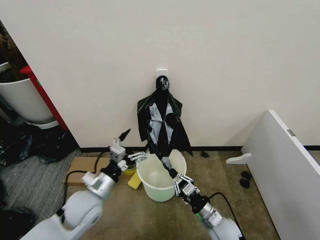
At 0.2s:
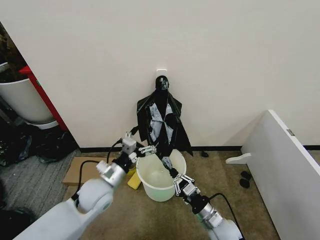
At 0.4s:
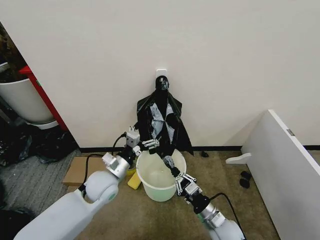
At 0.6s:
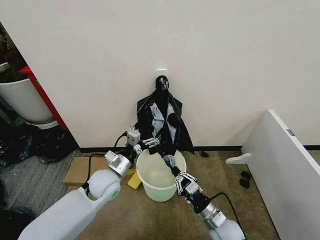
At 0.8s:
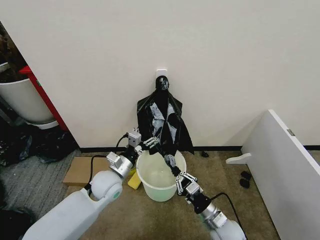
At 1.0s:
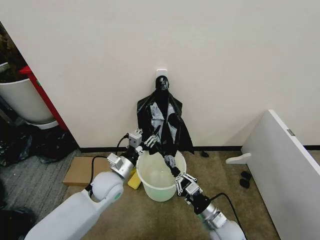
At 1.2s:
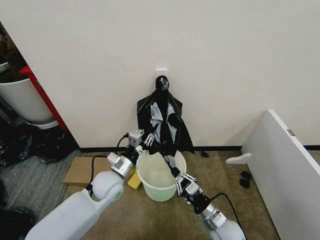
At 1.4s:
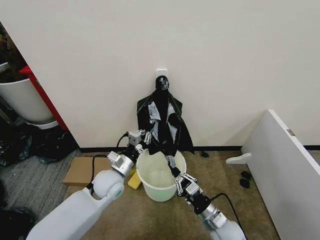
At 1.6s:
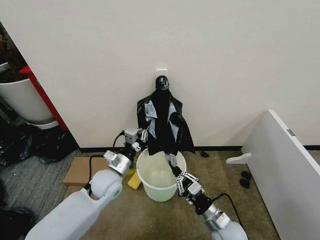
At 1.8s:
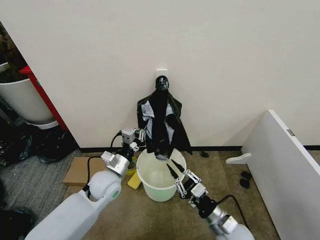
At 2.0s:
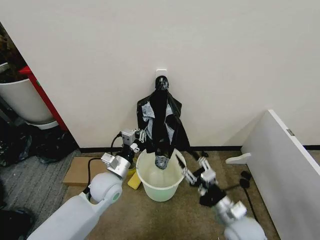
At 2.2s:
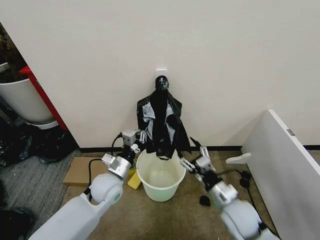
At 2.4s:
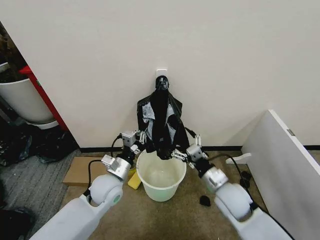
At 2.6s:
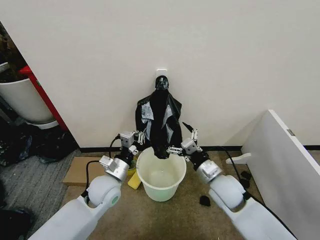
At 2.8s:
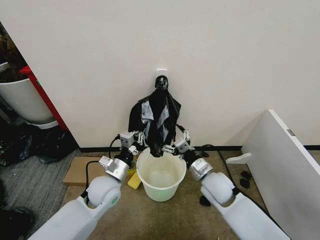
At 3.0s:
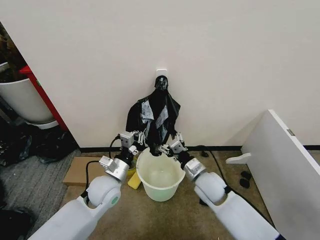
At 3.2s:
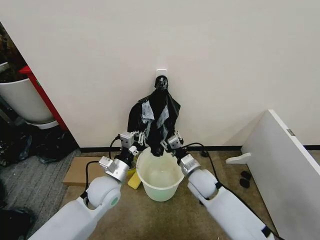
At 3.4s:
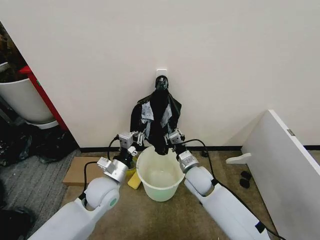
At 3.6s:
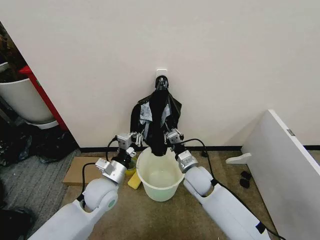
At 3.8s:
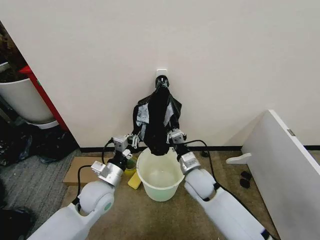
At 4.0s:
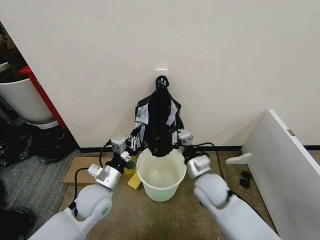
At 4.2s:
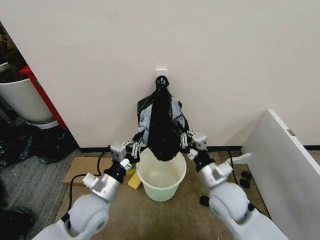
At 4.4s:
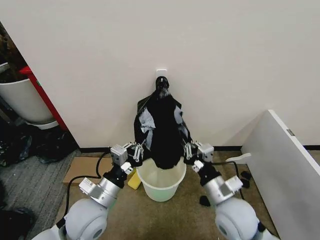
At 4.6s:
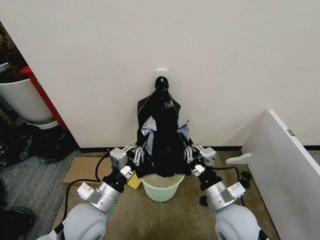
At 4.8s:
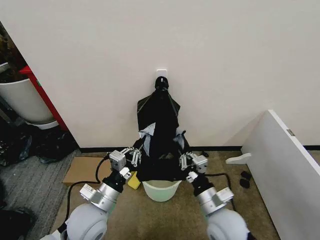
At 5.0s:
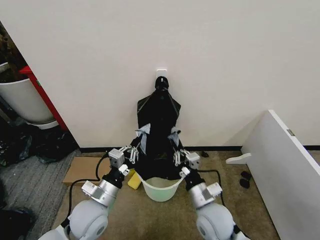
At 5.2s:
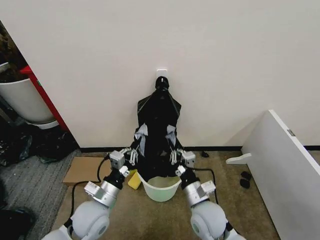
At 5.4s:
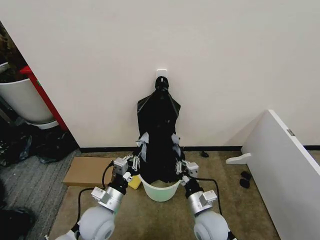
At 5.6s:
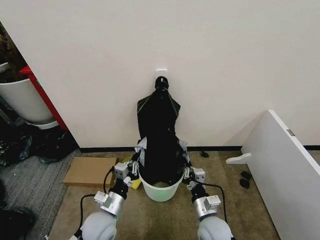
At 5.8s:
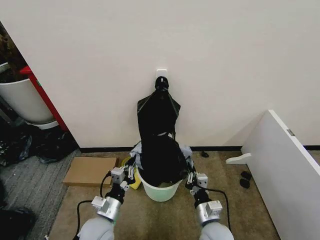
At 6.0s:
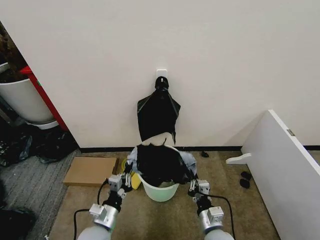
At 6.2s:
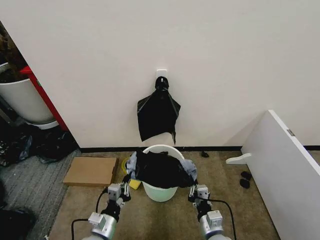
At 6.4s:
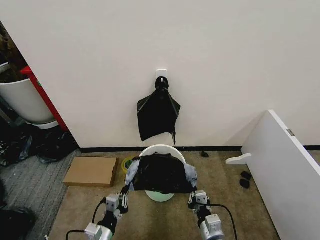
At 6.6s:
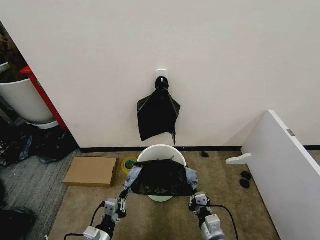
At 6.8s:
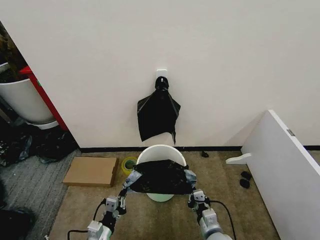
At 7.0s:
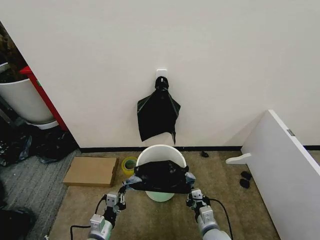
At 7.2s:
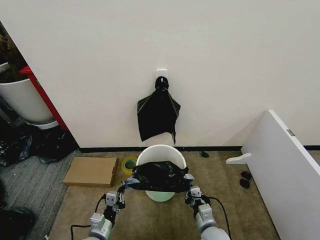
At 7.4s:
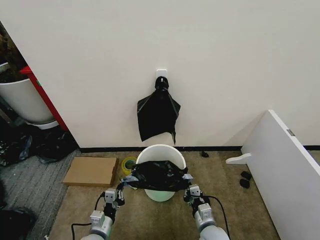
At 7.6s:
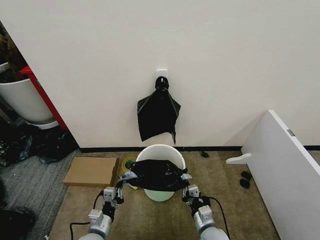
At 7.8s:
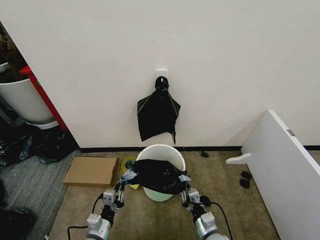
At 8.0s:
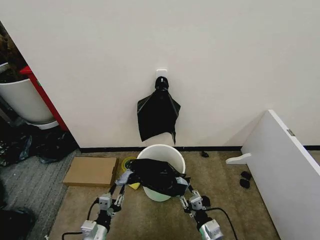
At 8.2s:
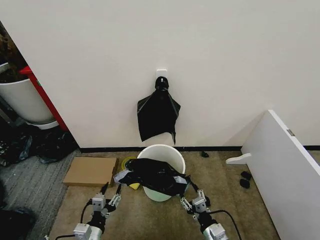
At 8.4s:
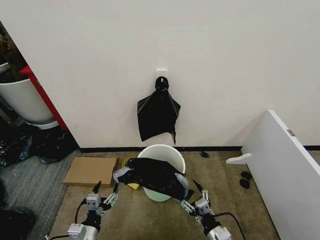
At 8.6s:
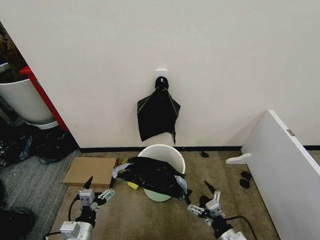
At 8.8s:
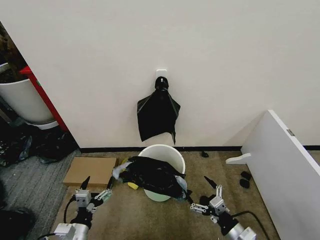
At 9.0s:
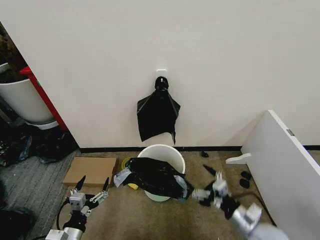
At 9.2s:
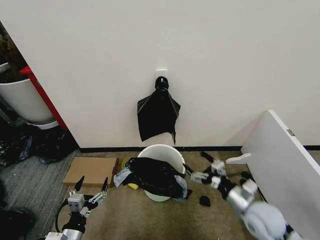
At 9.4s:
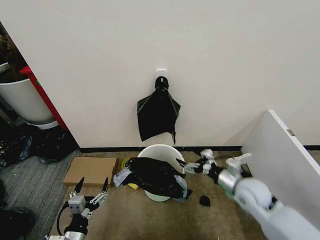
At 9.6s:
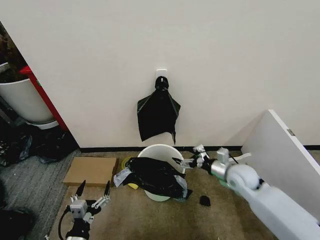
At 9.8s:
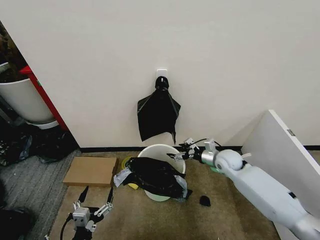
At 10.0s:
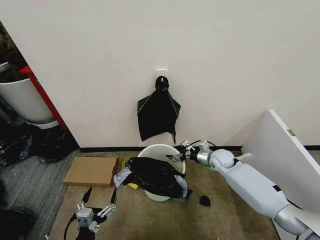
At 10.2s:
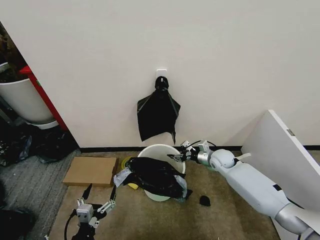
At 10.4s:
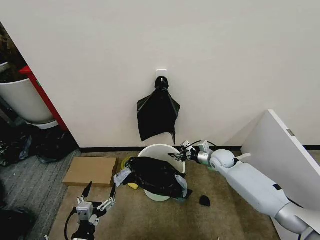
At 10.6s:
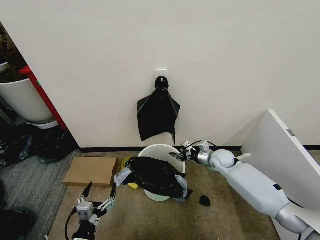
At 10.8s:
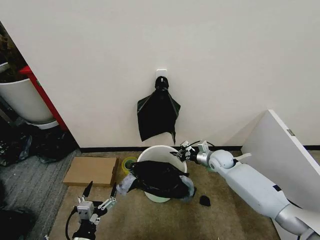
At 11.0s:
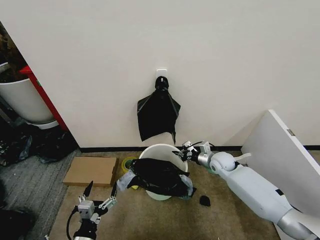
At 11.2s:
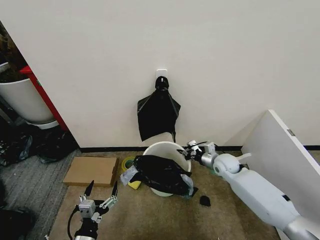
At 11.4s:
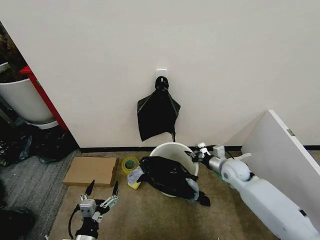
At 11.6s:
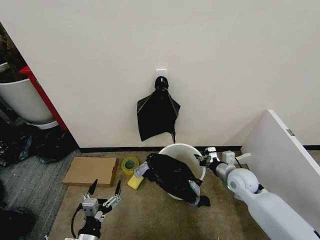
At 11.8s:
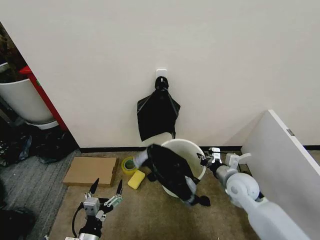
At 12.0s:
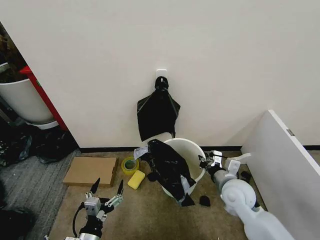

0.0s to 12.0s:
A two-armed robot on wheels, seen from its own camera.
Task of the whole recording: Place the garbage bag over the trash bin.
0.0s to 1.6s: The left gripper travels forward by approximately 5 cm, and closes its fingers.
1.6s to 3.0s: The right gripper shifts about 15 cm forward and upward, and opens its fingers.
3.0s to 4.4s: The right gripper moves backward and upward, approximately 10 cm, and closes up. The left gripper heads backward, covering roughly 10 cm.
4.4s to 6.0s: Both grippers move downward, roughly 15 cm.
6.0s to 7.6s: Both grippers move downward, roughly 5 cm.
7.6s to 9.0s: The right gripper travels upward and to the right by approximately 15 cm, and opens its fingers, while the left gripper moves upward, to the left and backward, approximately 10 cm, and opens its fingers.
9.0s to 10.4s: The right gripper moves forward, approximately 30 cm, and closes.
10.4s to 12.0s: The right gripper travels backward by some 15 cm, and closes its fingers.

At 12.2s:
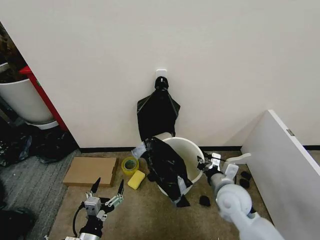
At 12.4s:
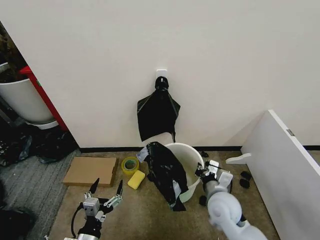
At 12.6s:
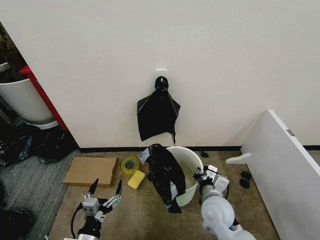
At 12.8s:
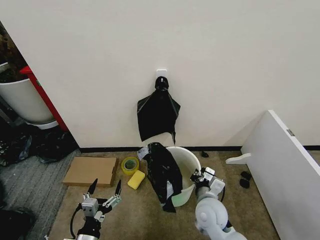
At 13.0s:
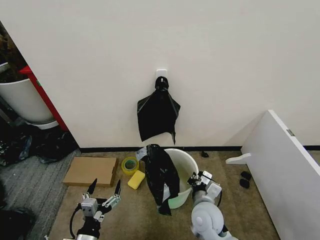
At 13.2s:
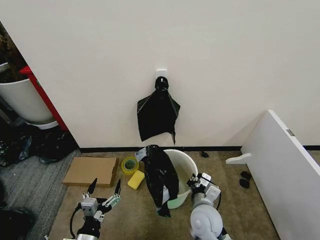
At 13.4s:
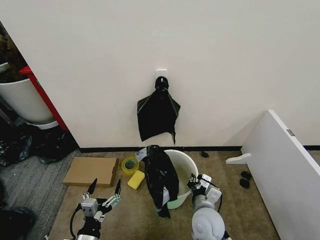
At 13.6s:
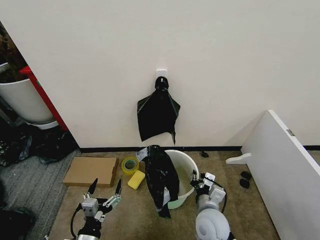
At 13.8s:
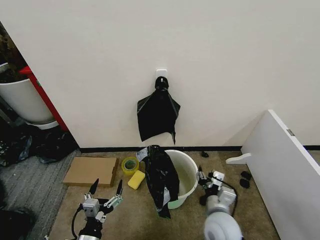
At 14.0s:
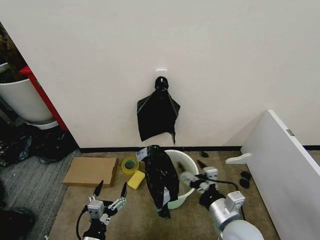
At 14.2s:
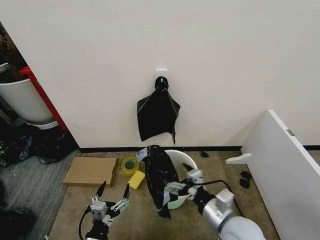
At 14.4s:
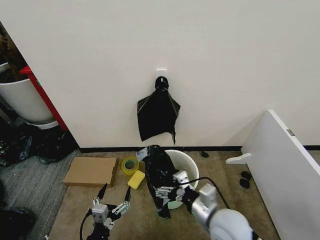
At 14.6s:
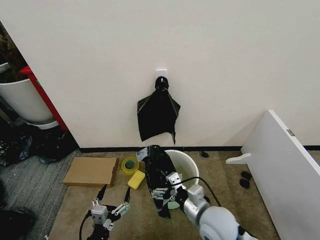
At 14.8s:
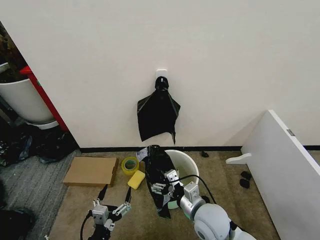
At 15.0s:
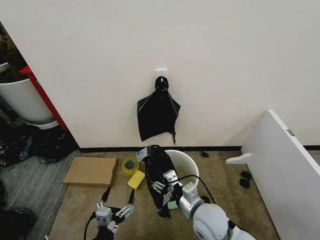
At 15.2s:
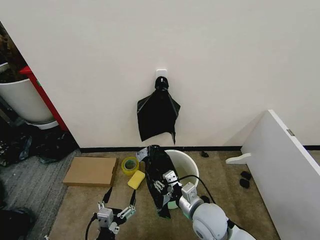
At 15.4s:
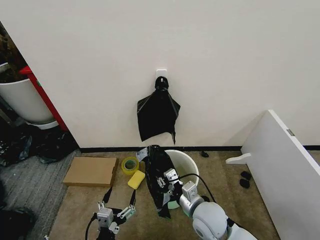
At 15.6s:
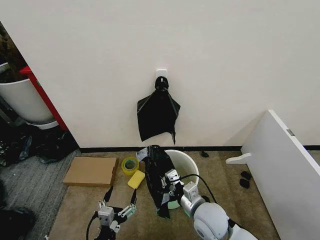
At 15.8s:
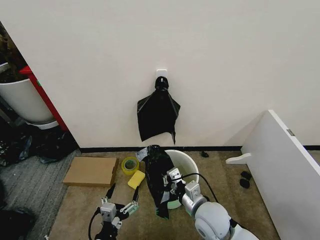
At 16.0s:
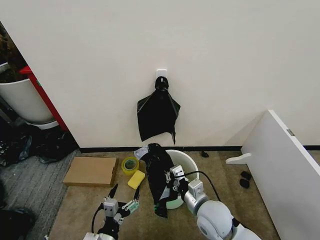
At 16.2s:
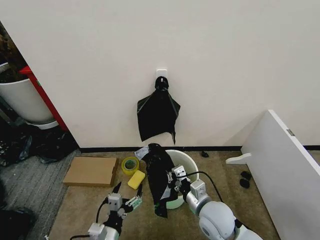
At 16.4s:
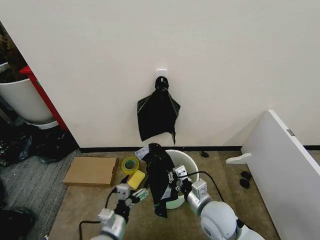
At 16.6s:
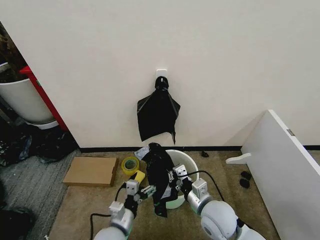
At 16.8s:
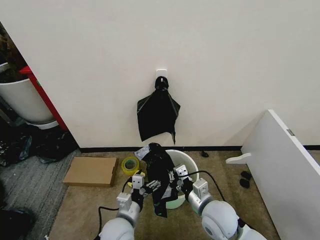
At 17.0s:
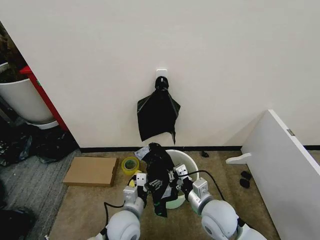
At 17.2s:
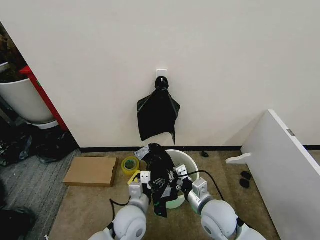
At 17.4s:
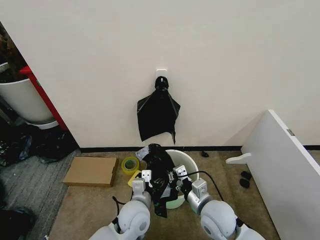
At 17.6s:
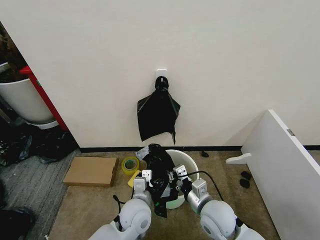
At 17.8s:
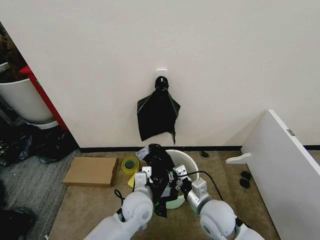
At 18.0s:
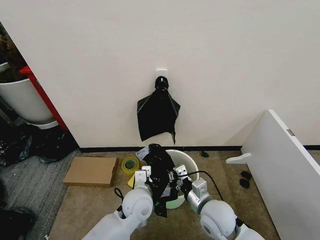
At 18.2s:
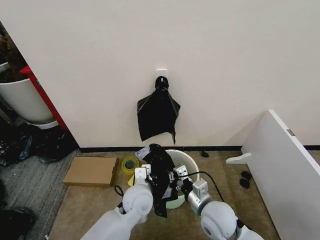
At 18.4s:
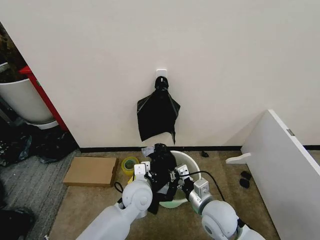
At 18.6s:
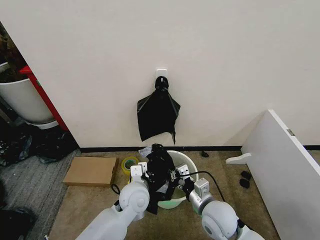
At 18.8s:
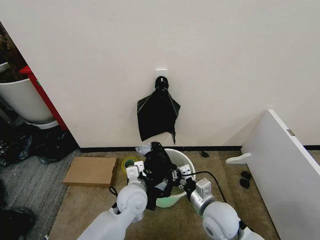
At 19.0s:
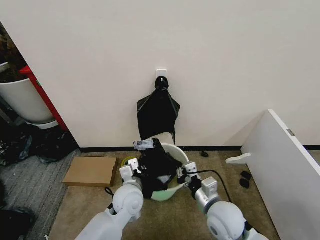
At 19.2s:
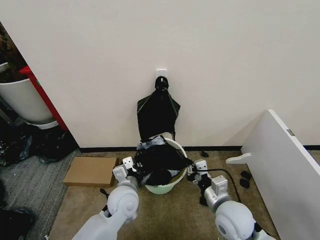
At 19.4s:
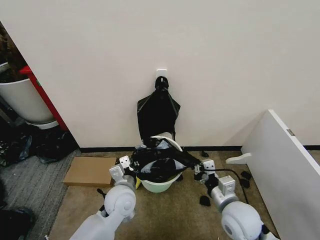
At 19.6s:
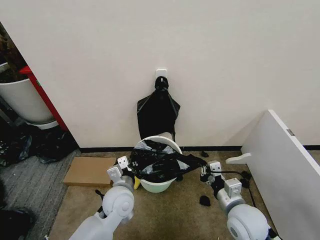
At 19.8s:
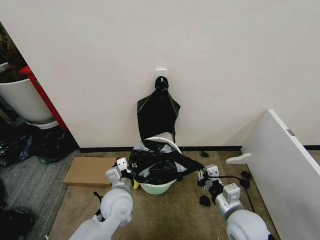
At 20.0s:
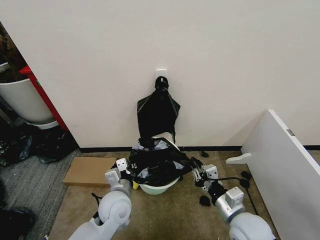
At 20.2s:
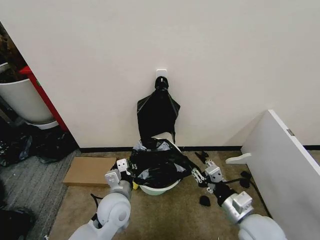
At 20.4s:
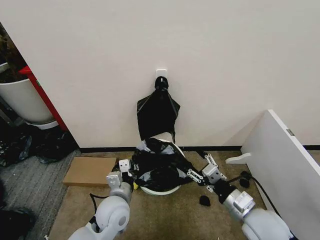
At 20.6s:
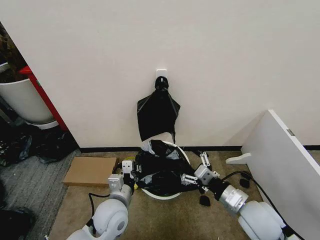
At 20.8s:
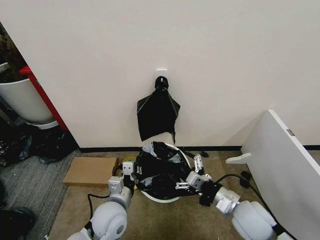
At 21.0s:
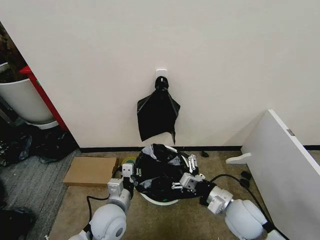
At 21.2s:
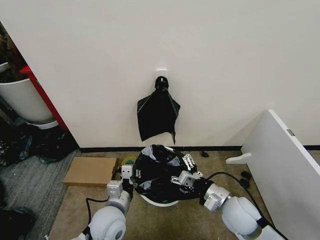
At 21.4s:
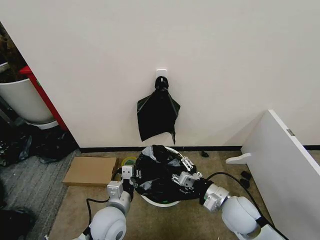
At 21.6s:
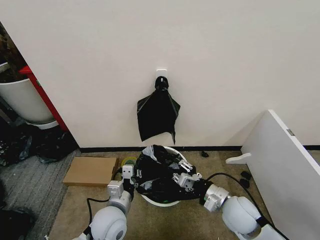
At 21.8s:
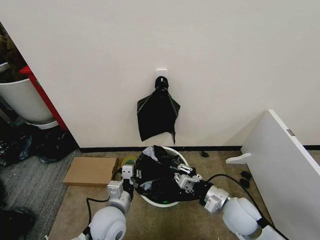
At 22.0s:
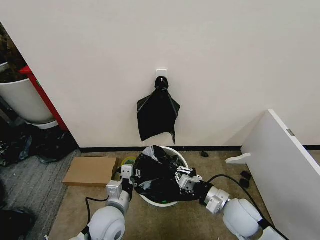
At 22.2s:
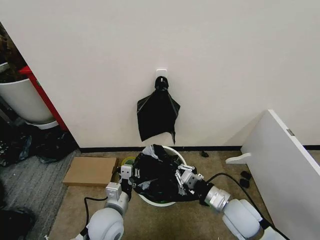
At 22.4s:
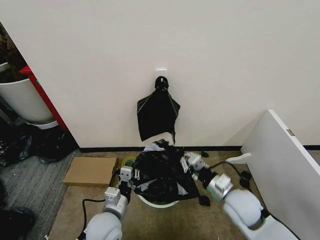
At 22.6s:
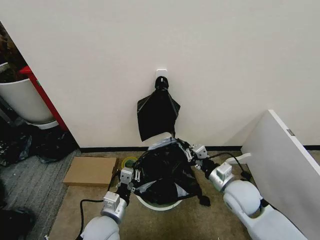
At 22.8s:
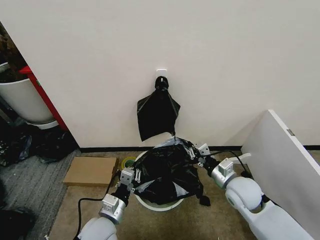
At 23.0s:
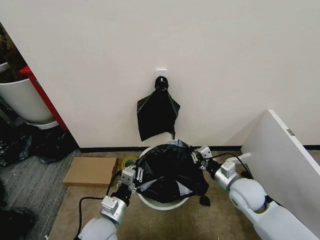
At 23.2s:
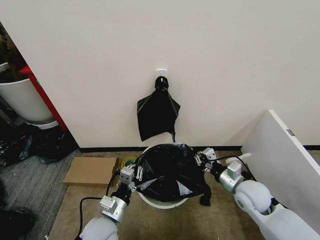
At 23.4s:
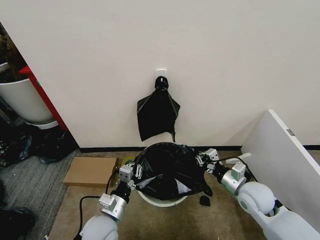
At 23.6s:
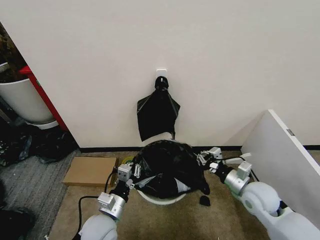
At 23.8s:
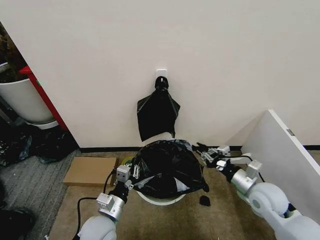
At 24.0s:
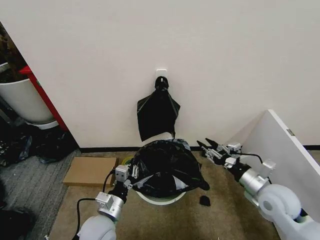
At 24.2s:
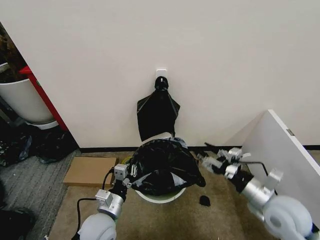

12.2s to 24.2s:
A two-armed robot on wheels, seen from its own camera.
Task of the whole recording: Place the garbage bag over the trash bin.
12.2s to 13.8s: The right gripper moves backward, approximately 5 cm, and opens up.
13.8s to 15.2s: The right gripper opens, then closes once more.
15.2s to 16.6s: The right gripper closes its fingers. Meanwhile the left gripper travels forward by approximately 10 cm.
16.6s to 18.2s: The left gripper moves forward, to the right and upward, about 15 cm, and closes up.
18.2s to 19.8s: The left gripper travels to the left by approximately 5 cm, while the right gripper moves to the right, some 5 cm.
19.8s to 21.2s: The left gripper travels backward by approximately 5 cm. Meanwhile the right gripper opens its fingers.
21.2s to 22.6s: The right gripper closes its fingers.
22.6s to 24.2s: The right gripper moves to the right, some 10 cm, and opens its fingers.
